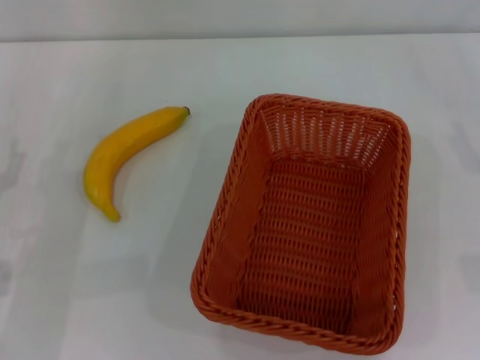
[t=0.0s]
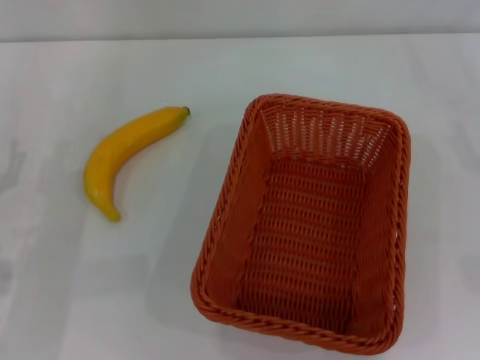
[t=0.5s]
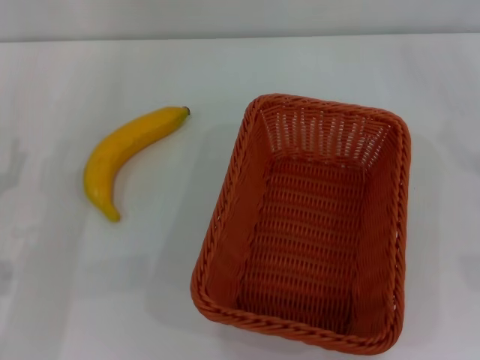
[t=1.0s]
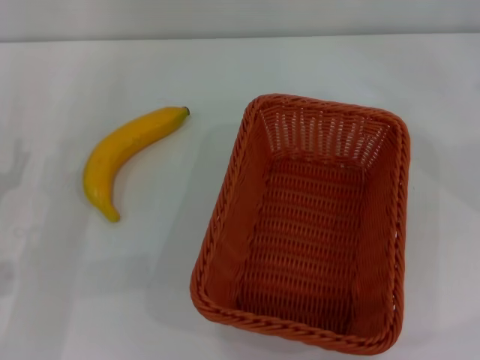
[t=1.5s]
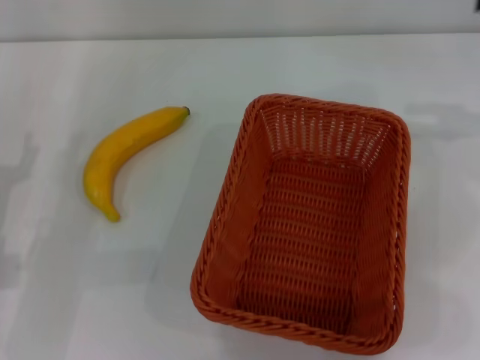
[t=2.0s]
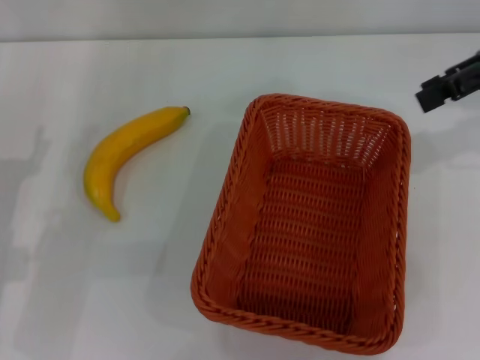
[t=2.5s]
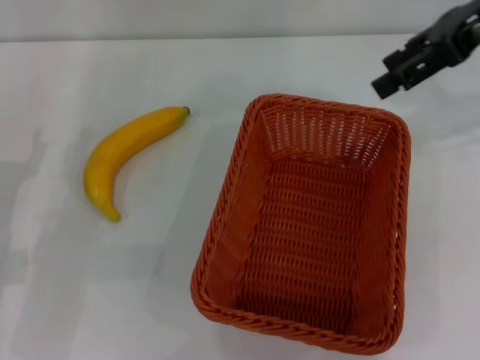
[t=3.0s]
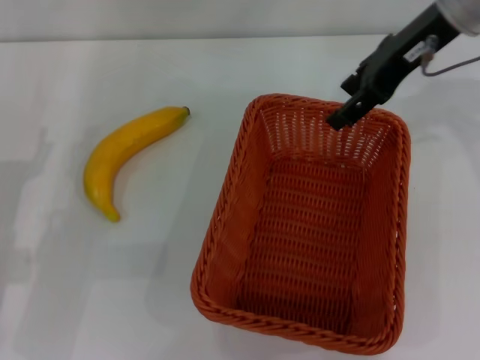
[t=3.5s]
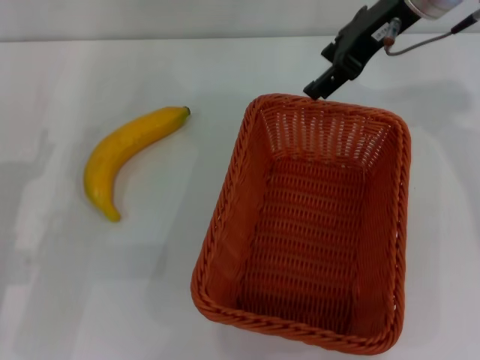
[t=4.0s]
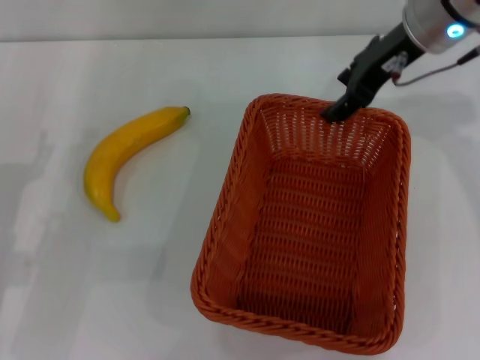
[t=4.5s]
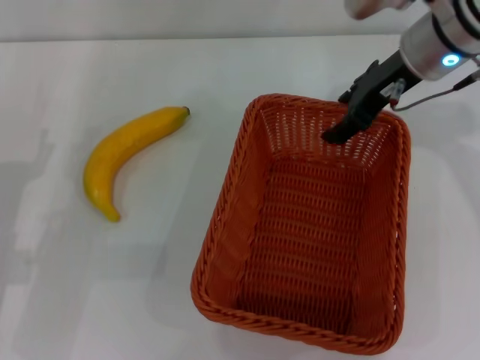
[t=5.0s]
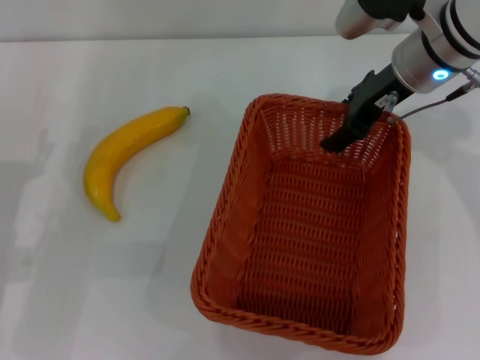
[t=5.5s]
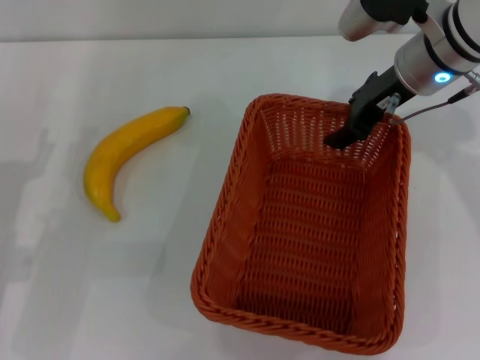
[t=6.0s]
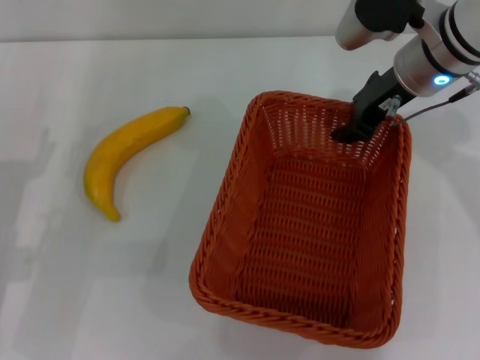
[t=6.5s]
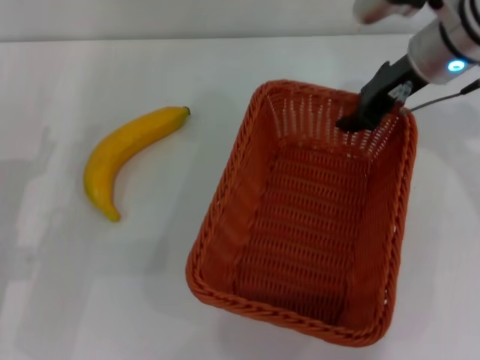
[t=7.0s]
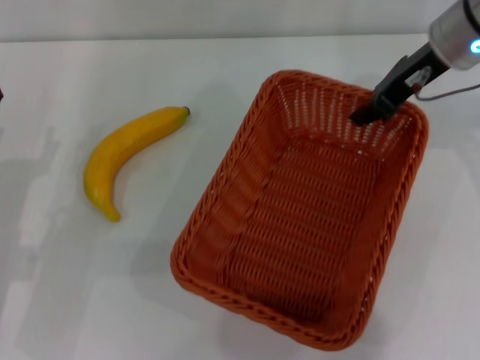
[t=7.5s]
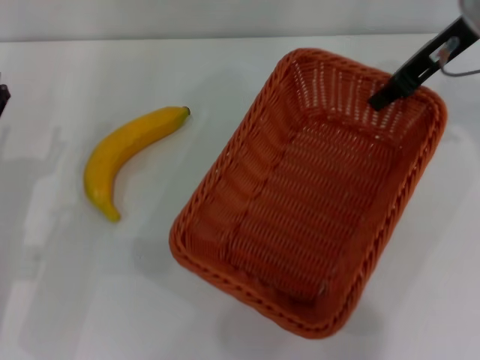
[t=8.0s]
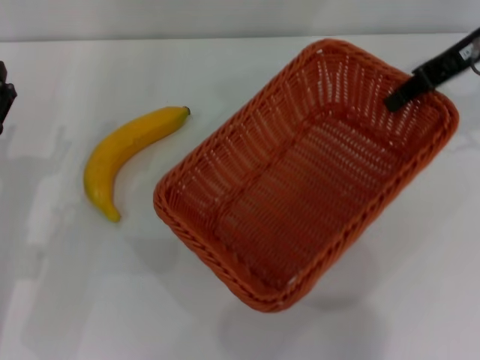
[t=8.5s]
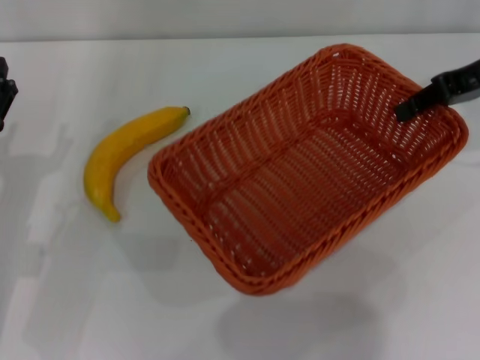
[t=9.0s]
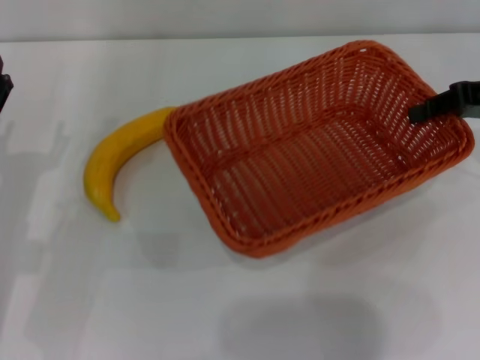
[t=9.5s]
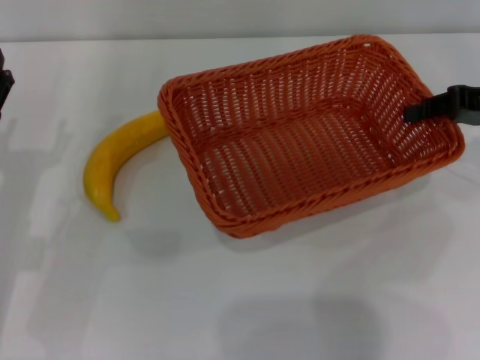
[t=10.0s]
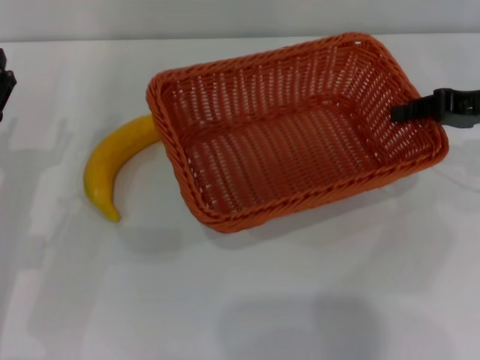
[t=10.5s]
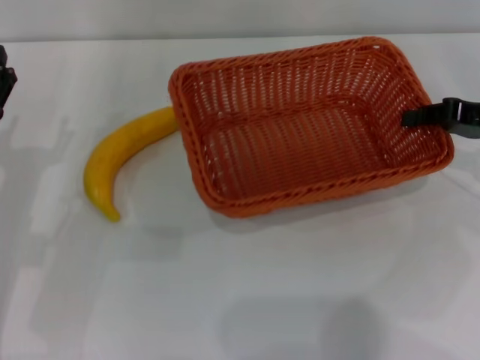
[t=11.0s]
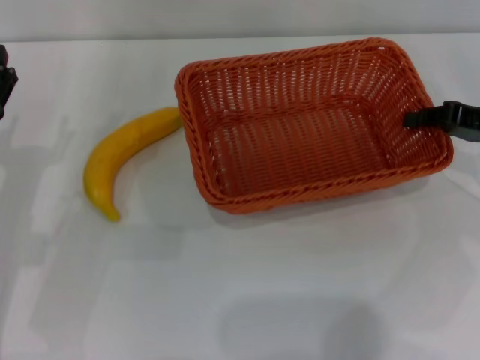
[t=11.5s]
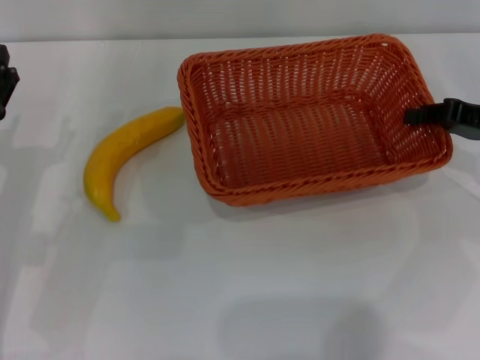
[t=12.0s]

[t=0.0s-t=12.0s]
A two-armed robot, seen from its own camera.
Step, t=0.0s to t=7.0s: Pick up the light basket with the right gripper.
t=2.0s to t=4.0s: The right gripper heads to the left, covering approximately 20 cm.
t=4.0s to t=6.0s: The right gripper travels downward by some 10 cm.
t=6.0s to t=8.0s: The right gripper goes approximately 5 cm upward, and closes up.
t=8.0s to t=10.0s: The right gripper heads to the right and downward, covering about 15 cm.
t=10.0s to t=12.0s: The grippers move only a little.

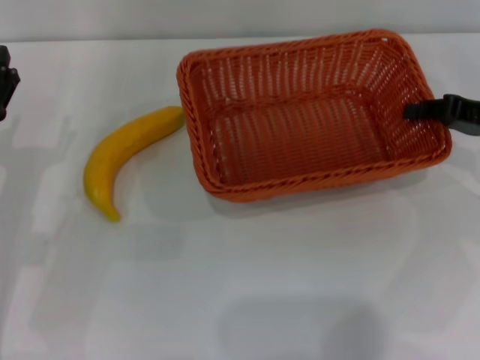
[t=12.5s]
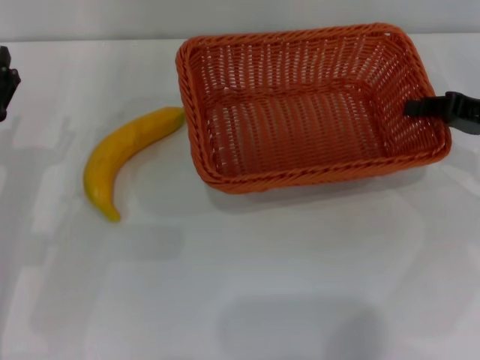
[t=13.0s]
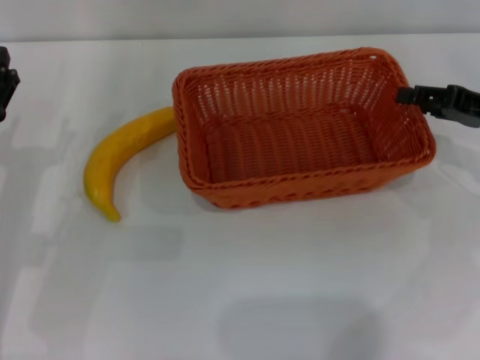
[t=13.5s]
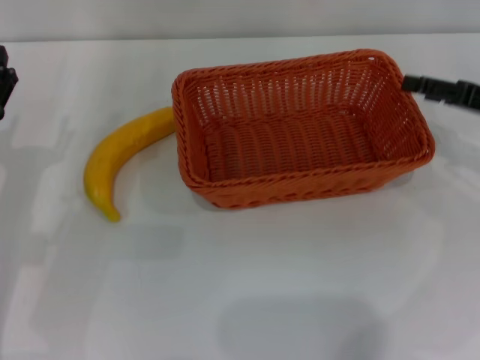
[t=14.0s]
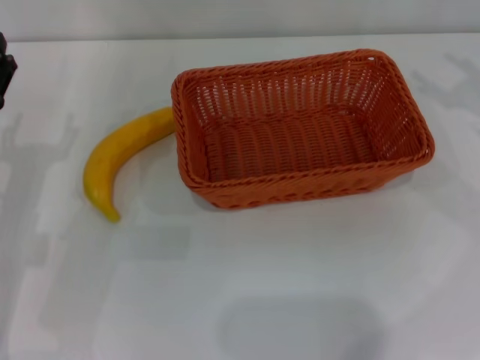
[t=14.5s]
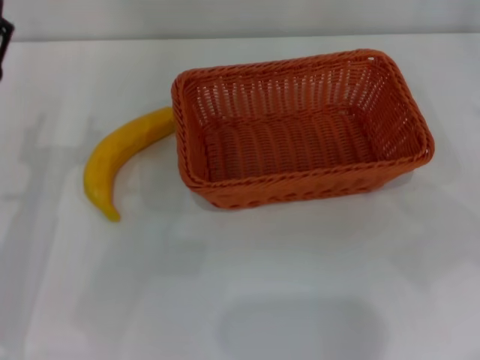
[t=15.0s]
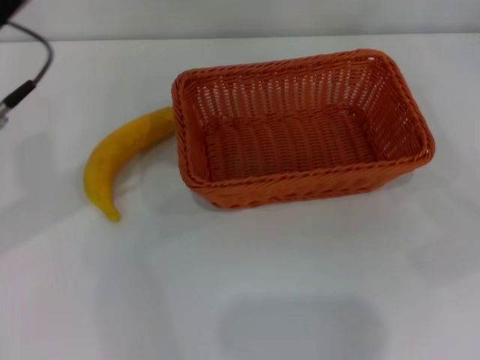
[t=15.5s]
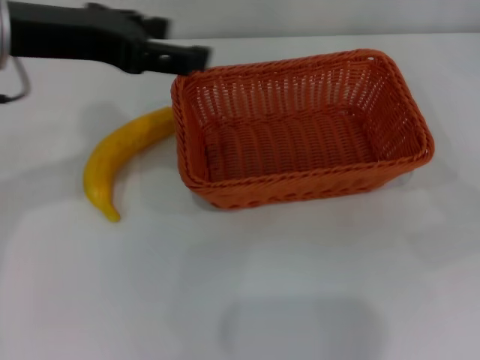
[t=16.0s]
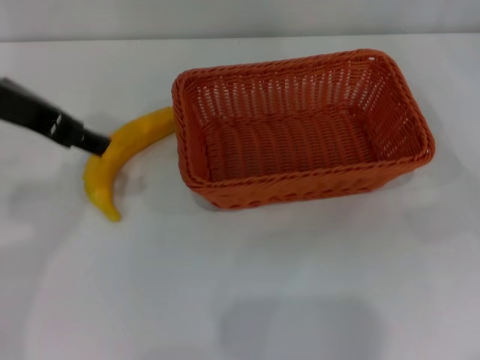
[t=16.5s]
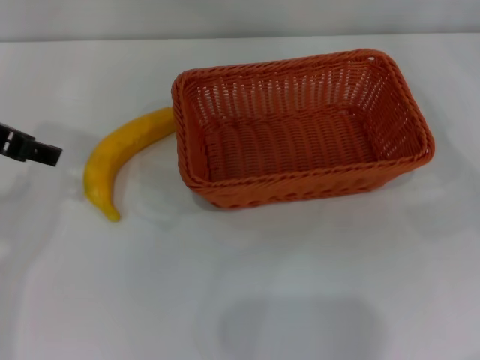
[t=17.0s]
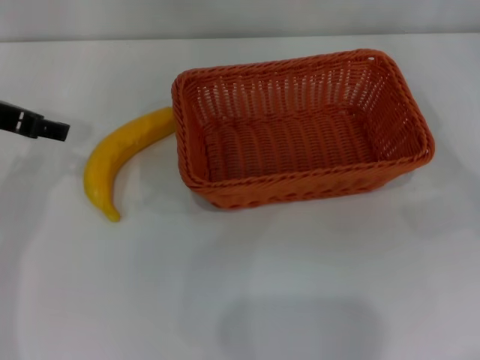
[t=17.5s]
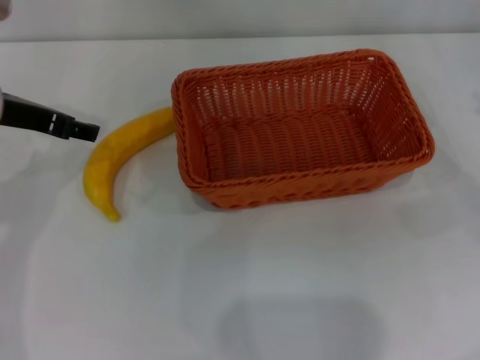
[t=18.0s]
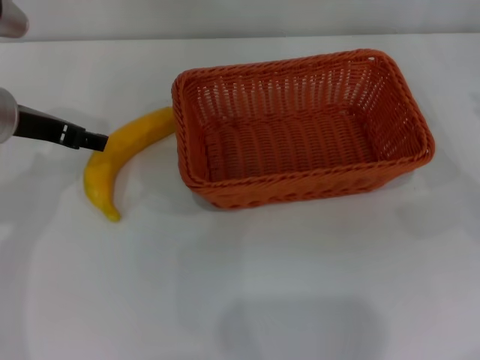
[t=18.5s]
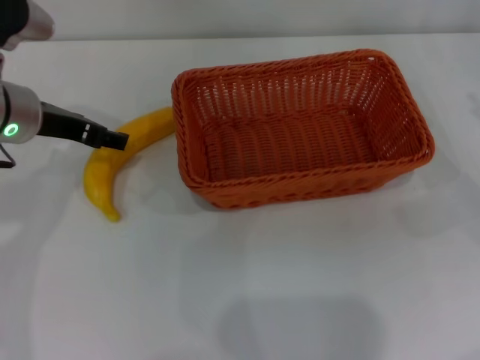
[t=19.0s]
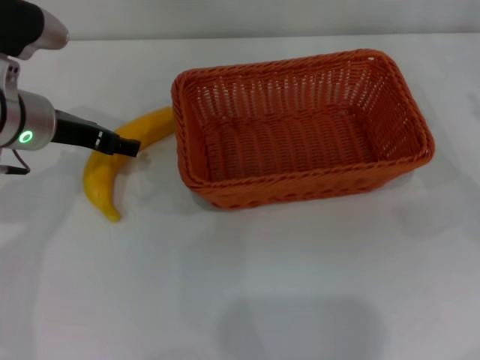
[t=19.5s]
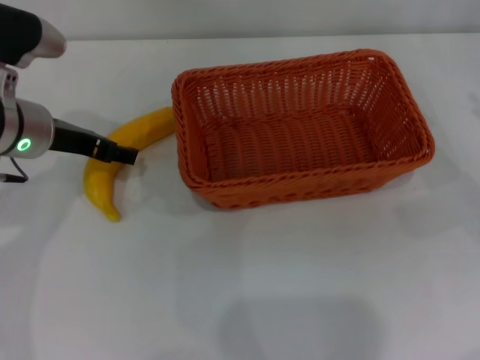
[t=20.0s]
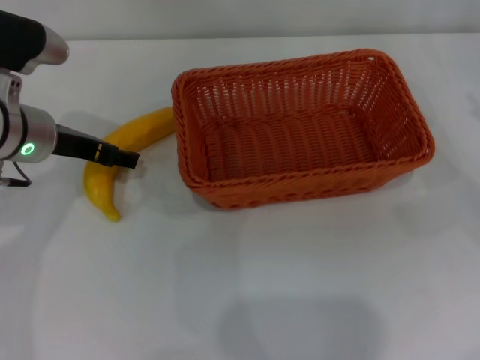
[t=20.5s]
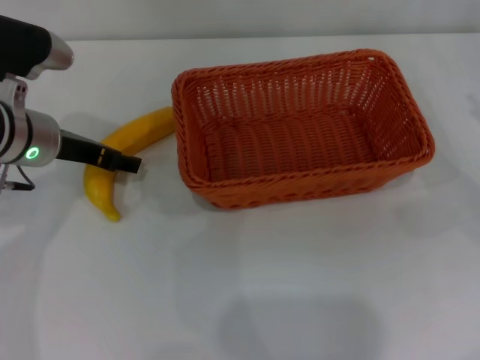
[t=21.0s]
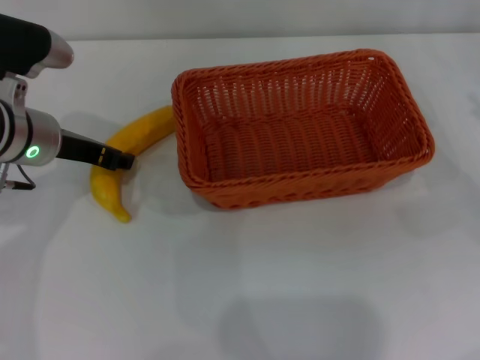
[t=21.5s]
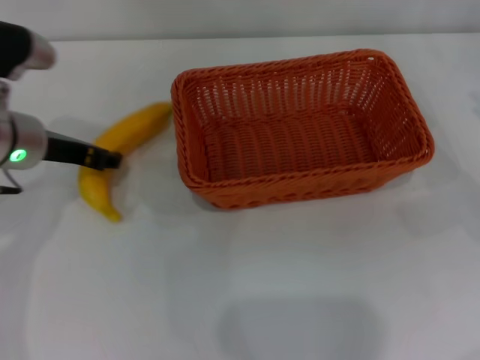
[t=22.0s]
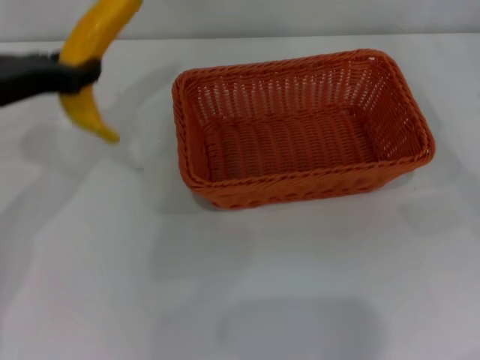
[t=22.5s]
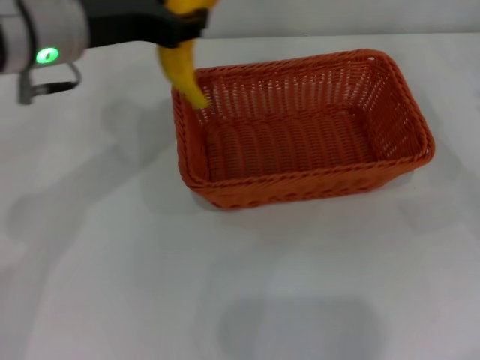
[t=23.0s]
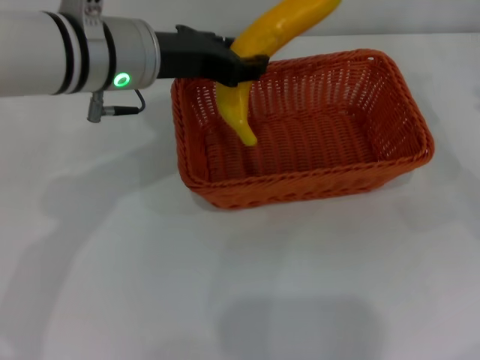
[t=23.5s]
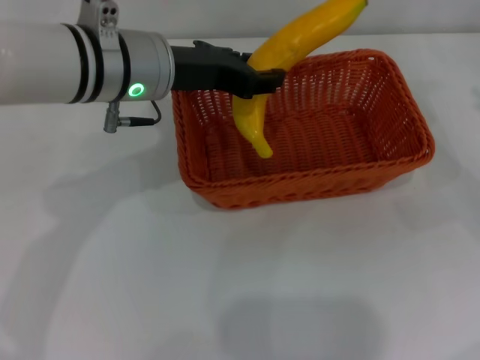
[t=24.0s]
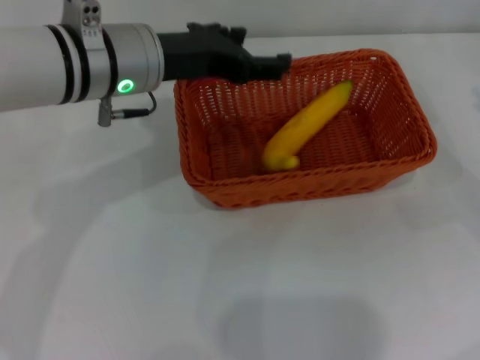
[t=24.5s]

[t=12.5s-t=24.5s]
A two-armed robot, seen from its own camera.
Step, t=14.0s to t=22.0s: Pick up the banana with the left gripper.
Step, t=22.5s to t=24.0s: Place the banana into the light basket with the left gripper.
t=12.5s to t=14.5s: The right gripper is displaced upward by approximately 5 cm, and opens up.
t=14.5s to t=16.5s: The left gripper travels upward by about 20 cm.
t=16.5s to t=18.5s: The left gripper is displaced downward by roughly 10 cm.
t=18.5s to t=20.5s: The grippers make only small movements.
t=20.5s to t=22.5s: The left gripper heads upward, covering about 5 cm, and closes its fingers.
t=22.5s to t=24.5s: The left gripper heads to the right, covering about 10 cm, and opens.

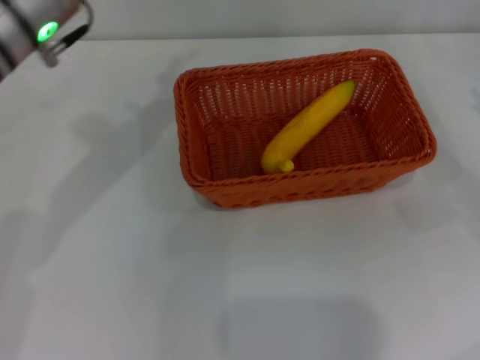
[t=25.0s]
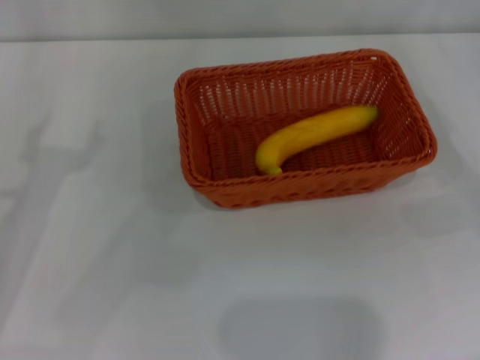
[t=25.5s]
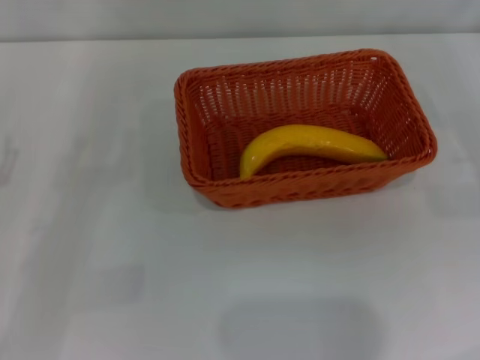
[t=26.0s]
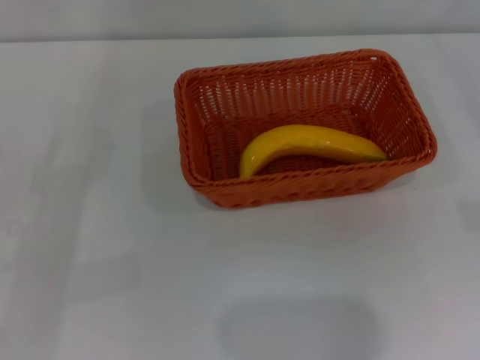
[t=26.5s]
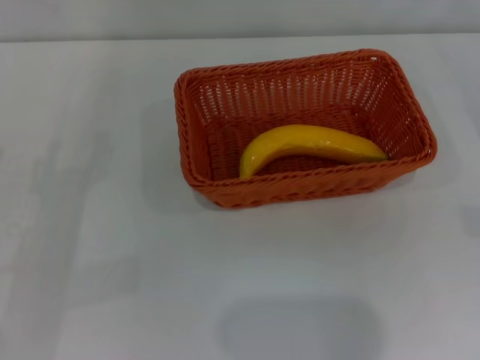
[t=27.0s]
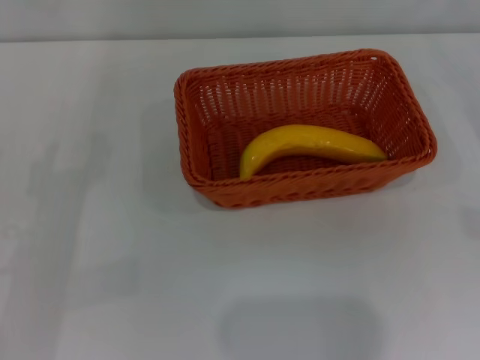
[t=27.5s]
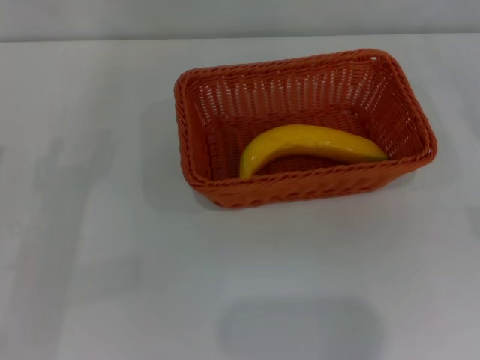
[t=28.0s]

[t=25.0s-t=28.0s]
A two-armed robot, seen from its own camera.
t=25.0s to t=26.5s: The right gripper shifts roughly 10 cm to the right. Meanwhile the left gripper is displaced downward, to the left and backward by approximately 25 cm.
